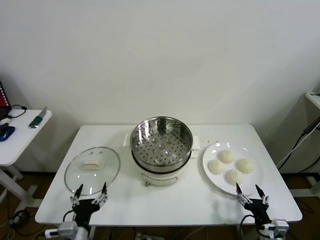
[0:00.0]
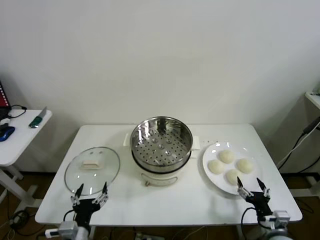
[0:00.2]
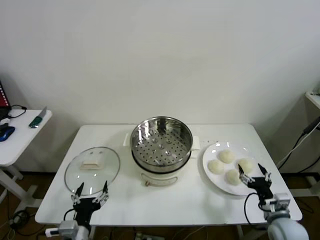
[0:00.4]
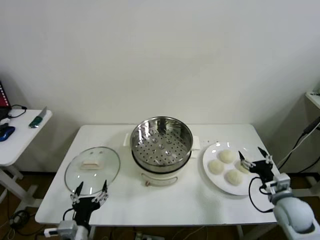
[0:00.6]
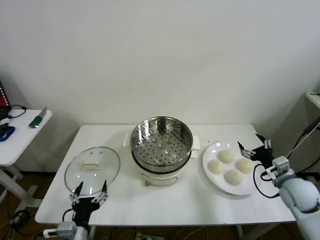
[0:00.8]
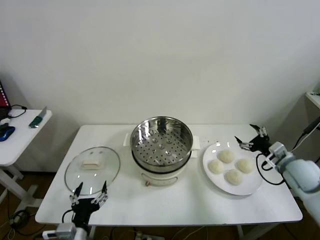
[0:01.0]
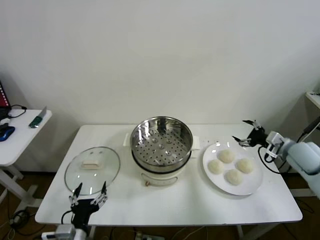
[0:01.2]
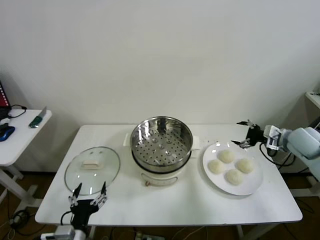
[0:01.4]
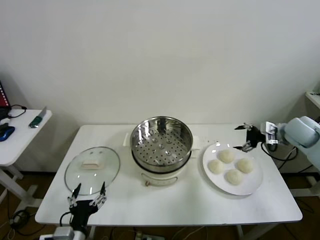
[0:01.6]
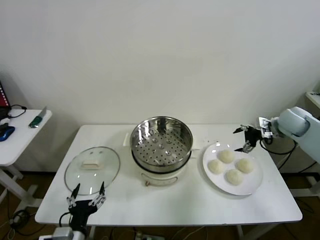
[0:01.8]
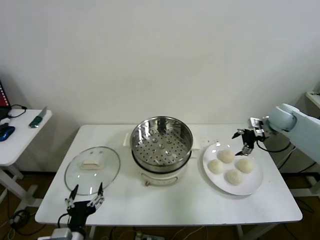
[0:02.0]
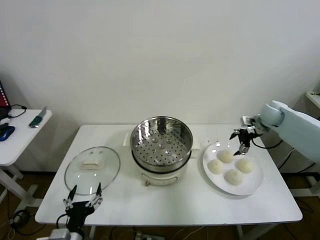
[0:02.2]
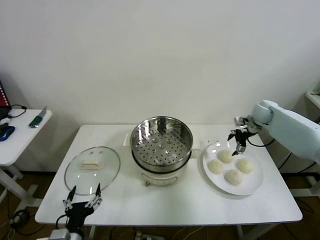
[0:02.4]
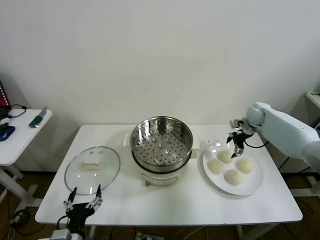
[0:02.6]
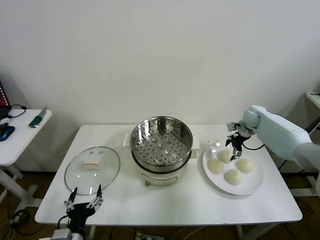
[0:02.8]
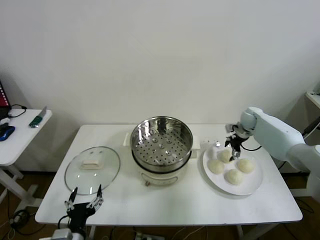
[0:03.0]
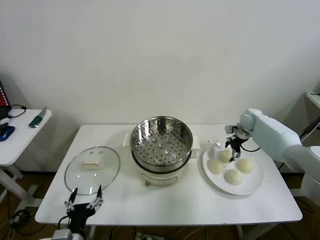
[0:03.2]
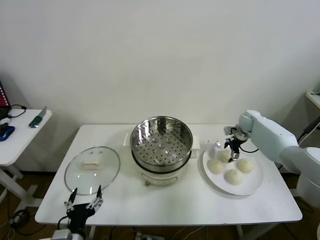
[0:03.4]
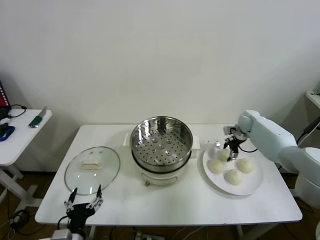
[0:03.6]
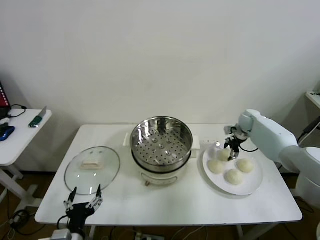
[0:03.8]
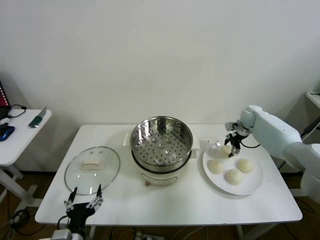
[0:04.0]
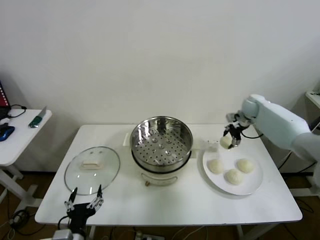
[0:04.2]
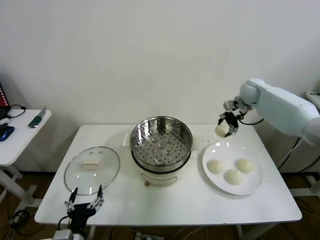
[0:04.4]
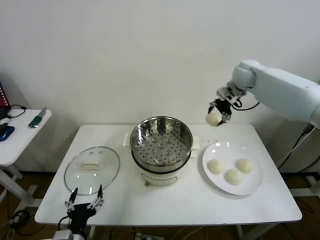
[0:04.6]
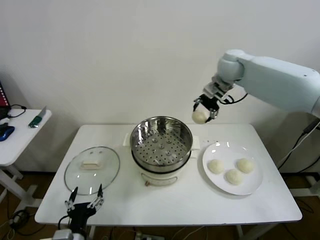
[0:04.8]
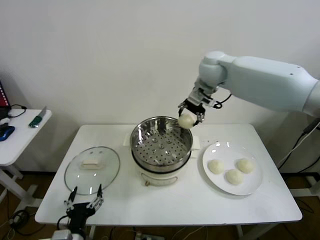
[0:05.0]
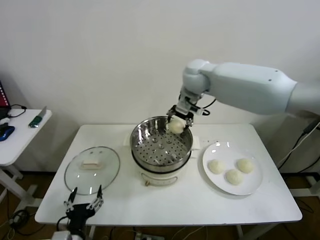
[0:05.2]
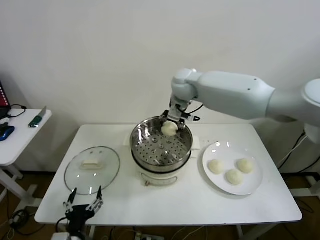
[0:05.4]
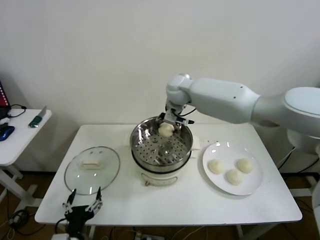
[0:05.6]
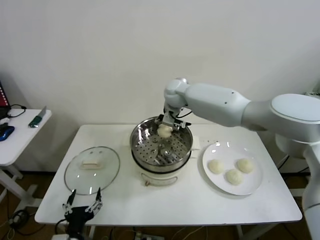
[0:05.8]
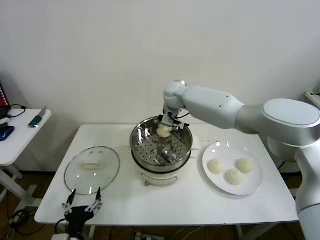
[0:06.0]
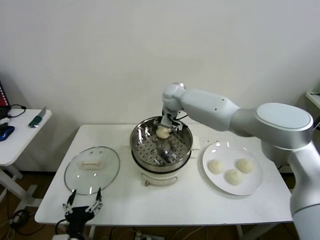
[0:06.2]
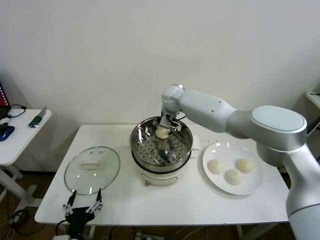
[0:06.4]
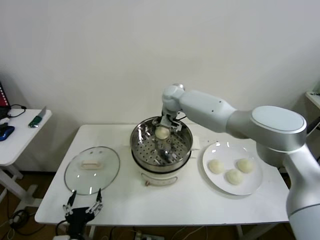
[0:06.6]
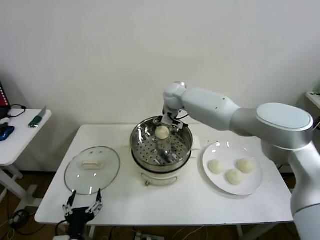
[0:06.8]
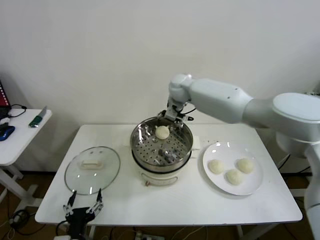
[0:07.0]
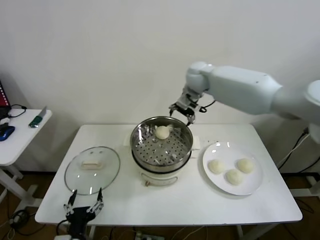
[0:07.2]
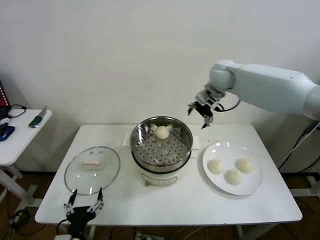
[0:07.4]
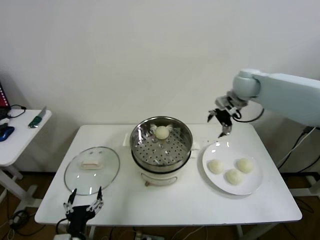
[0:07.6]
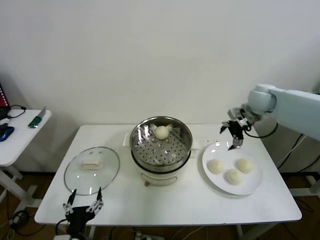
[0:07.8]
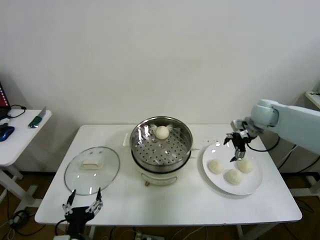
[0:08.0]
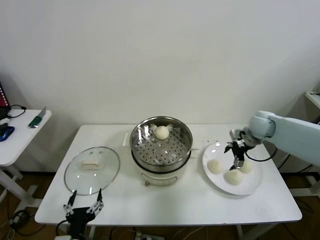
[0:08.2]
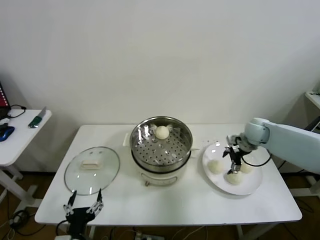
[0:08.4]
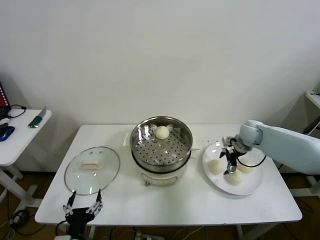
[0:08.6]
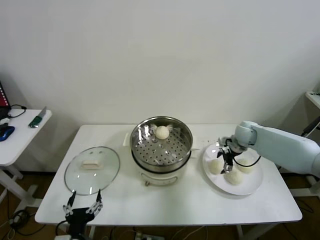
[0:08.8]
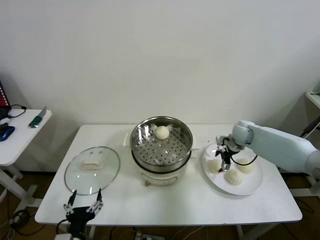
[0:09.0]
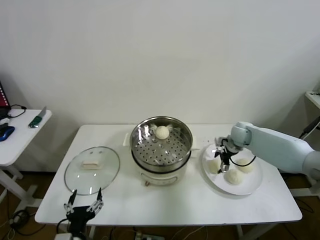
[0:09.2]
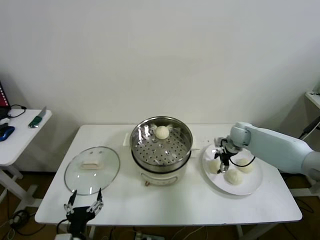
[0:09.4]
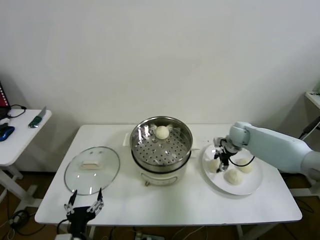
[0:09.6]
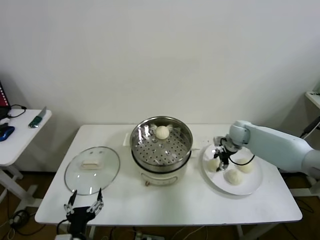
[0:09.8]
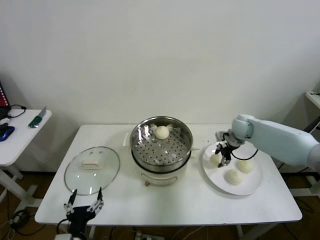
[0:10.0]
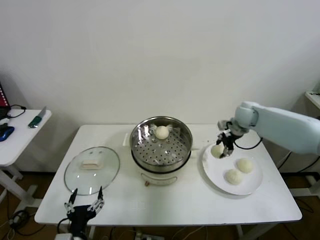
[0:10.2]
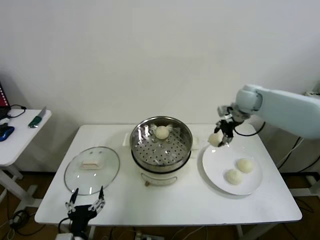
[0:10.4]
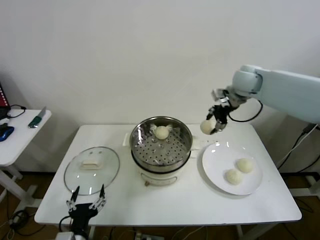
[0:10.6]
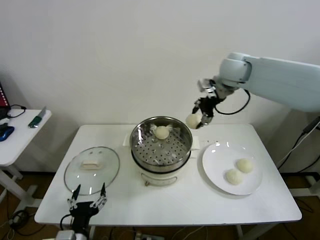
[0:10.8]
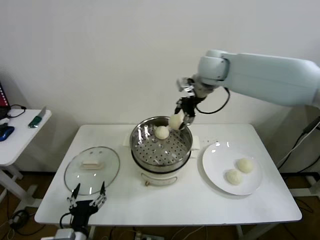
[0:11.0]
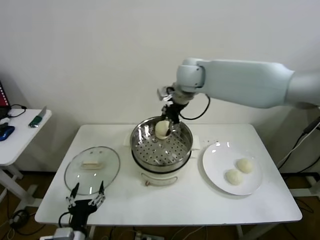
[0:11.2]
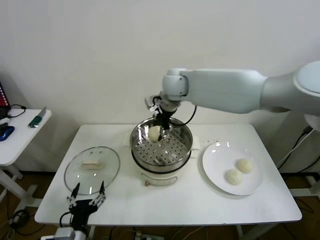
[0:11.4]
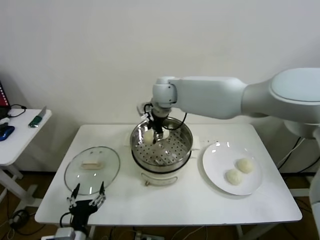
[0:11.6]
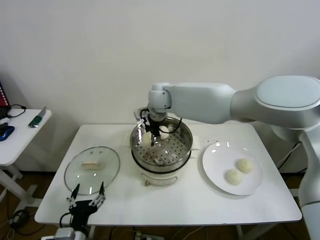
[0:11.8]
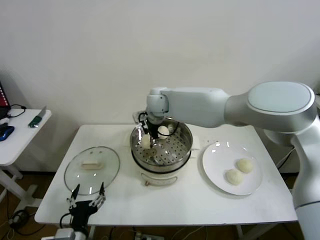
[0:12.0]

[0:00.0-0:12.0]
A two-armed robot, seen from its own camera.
Step, 0:00.0 to 0:03.6: Grasp the baozi in the plate with right gripper.
Step, 0:03.8 to 0:06.4: Place the baozi on the steamer with right gripper.
Step, 0:06.6 to 0:09.6: Grasp the baozi in the plate with right gripper.
0:01.6 to 0:03.0: The right gripper shifts about 20 cm forward, downward and to the left.
0:03.0 to 0:04.4: The right gripper moves upward, roughly 15 cm, and closes up.
0:04.4 to 0:06.0: The right gripper moves to the left, approximately 30 cm.
0:06.0 to 0:07.6: The right gripper is displaced to the right by roughly 25 cm, and opens.
0:07.6 to 0:09.0: The right gripper moves downward, approximately 20 cm.
0:09.0 to 0:10.4: The right gripper is displaced upward by about 15 cm, and closes.
0:10.4 to 0:12.0: The right gripper shifts roughly 30 cm to the left.

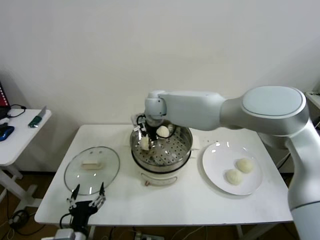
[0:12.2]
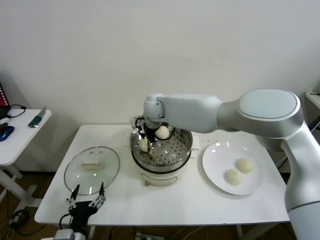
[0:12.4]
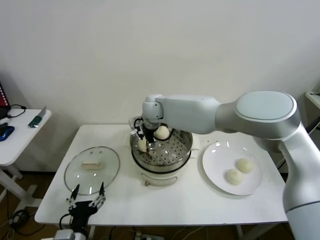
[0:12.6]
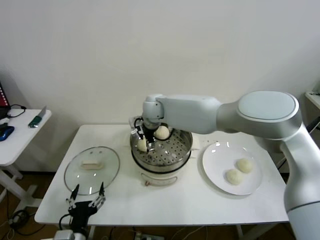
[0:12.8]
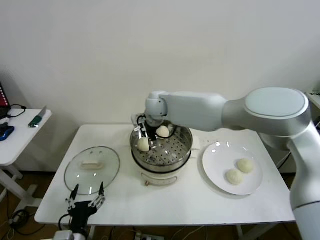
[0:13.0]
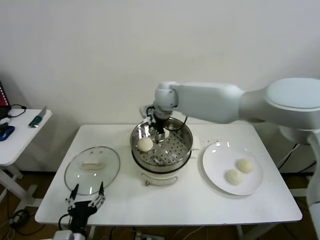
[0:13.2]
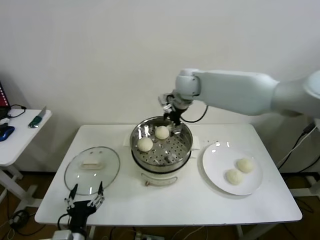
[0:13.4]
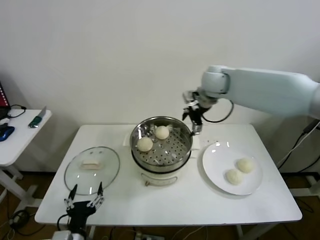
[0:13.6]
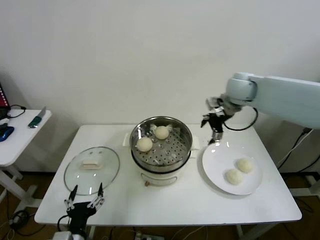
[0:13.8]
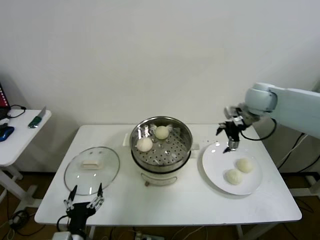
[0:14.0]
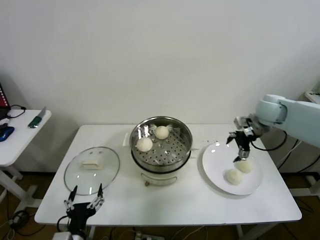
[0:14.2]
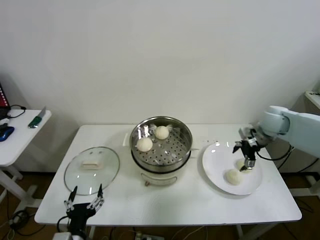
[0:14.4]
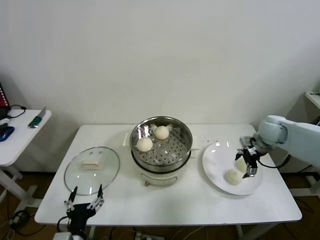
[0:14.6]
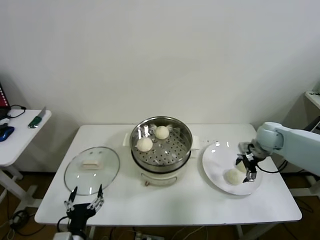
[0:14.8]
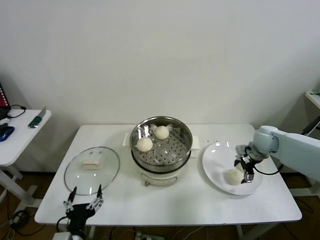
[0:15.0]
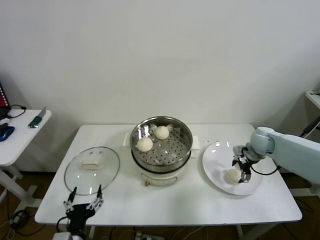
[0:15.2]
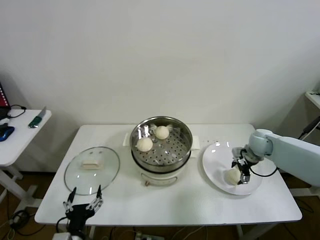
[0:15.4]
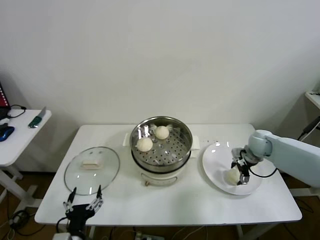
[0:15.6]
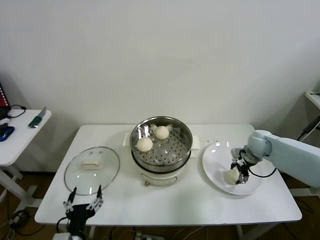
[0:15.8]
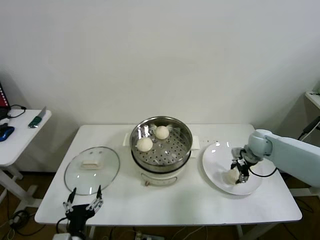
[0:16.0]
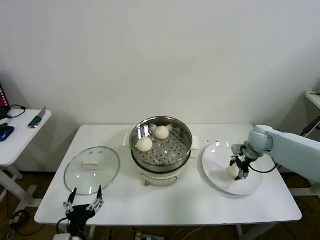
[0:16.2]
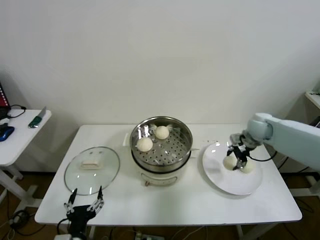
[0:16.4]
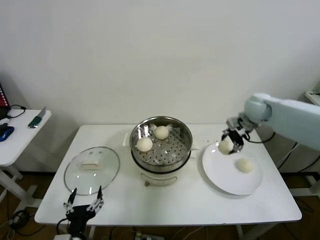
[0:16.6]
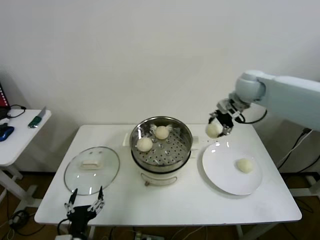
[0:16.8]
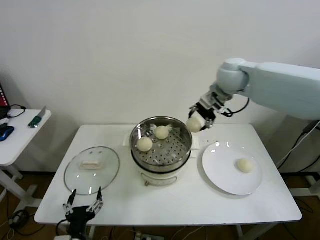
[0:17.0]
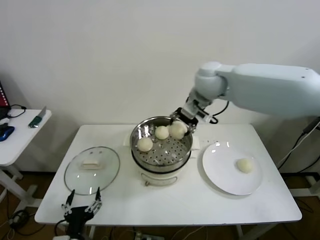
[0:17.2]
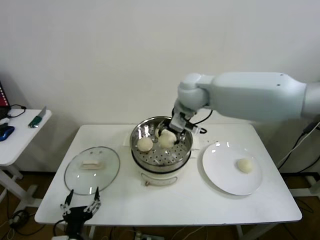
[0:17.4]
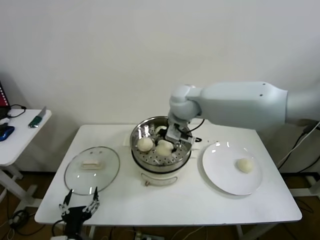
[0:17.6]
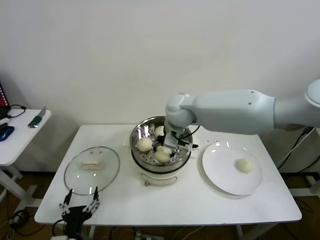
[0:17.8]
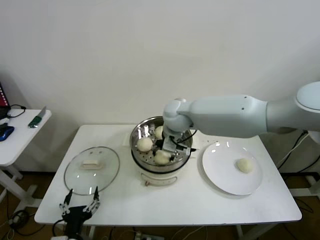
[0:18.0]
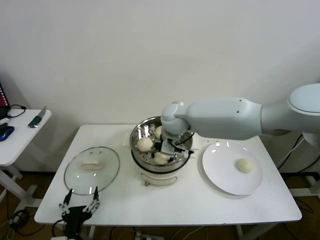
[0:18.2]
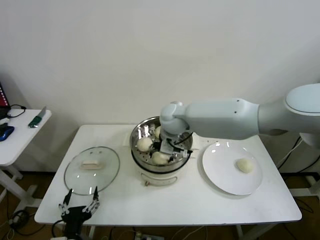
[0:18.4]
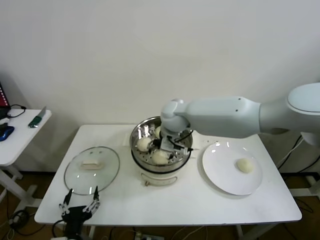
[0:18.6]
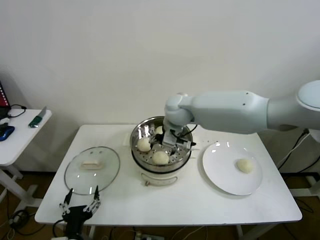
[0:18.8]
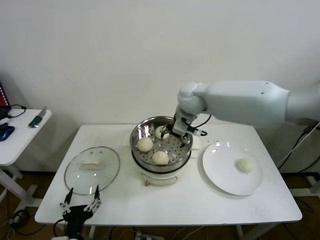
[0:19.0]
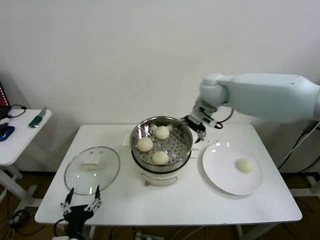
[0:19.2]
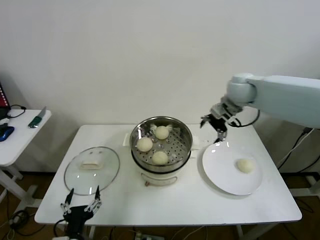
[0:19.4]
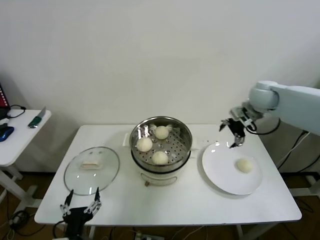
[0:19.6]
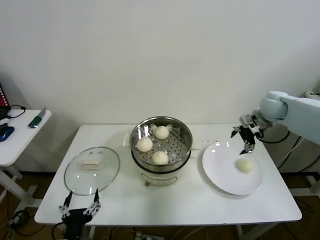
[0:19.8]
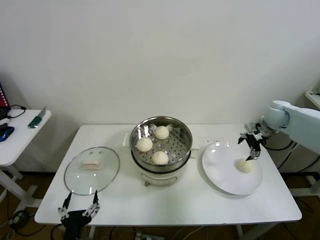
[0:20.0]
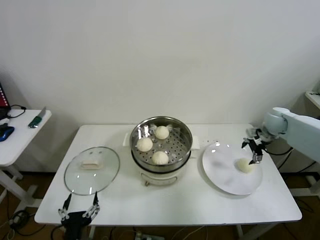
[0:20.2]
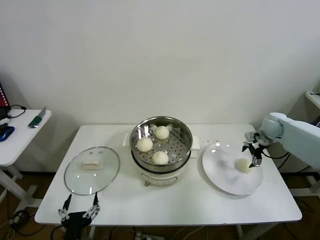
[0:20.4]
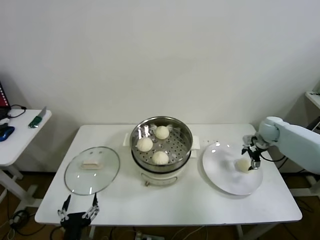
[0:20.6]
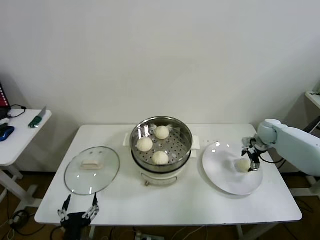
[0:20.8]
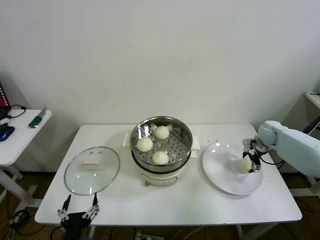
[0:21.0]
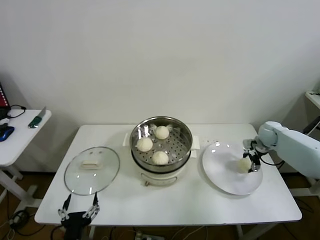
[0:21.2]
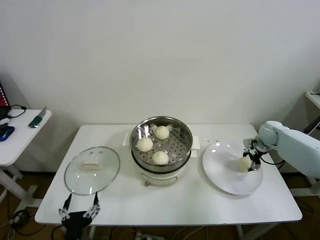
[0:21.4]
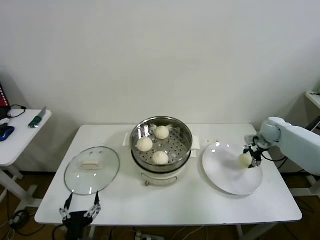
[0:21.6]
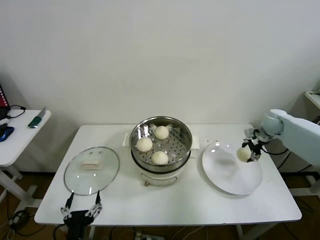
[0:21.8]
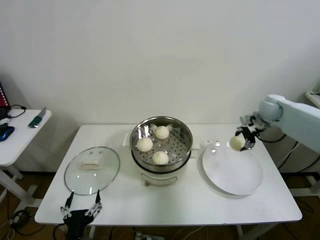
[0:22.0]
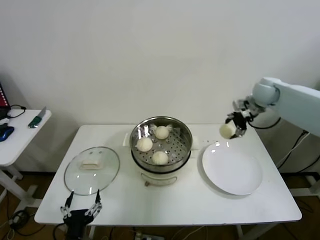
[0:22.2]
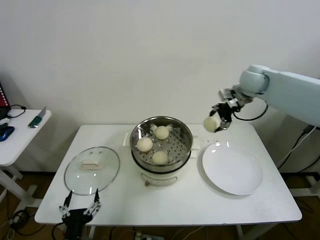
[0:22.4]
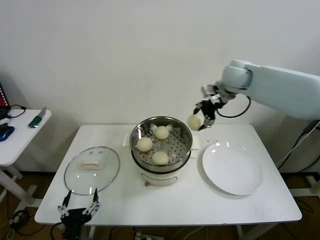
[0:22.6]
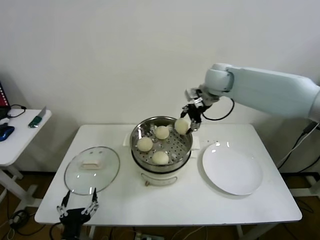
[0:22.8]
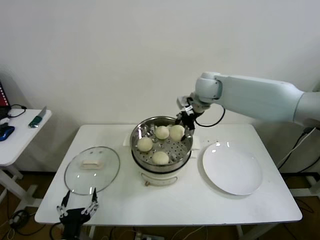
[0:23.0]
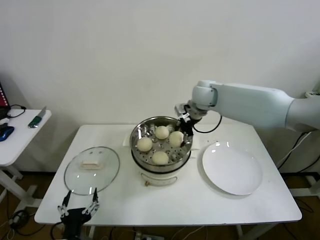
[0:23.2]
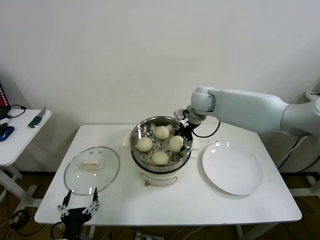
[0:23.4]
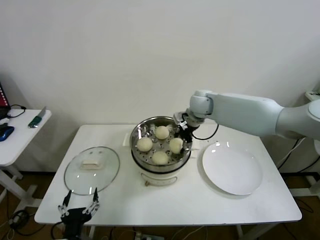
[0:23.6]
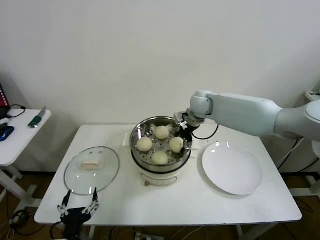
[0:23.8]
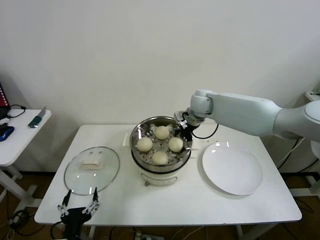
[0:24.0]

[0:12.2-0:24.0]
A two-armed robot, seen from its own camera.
Step, 0:12.8 to 0:15.8: Grasp the baozi in the plate with right gripper.
Step, 0:16.0 to 0:18.2: Place the baozi on the steamer with right gripper.
Step, 0:18.6 to 0:21.0: Grasp the baozi in the plate with right gripper.
Step, 0:21.2 to 0:23.8: Place the baozi on the steamer with right gripper.
0:12.2 to 0:13.6: The right gripper heads to the right and upward, covering approximately 20 cm, and opens.
0:13.6 to 0:15.2: The right gripper shifts roughly 30 cm downward and to the right.
0:15.2 to 0:16.6: The right gripper travels upward by approximately 15 cm, and closes its fingers.
0:16.6 to 0:18.2: The right gripper is displaced to the left by roughly 30 cm.
0:18.2 to 0:19.6: The right gripper travels to the right by some 30 cm, and opens up.
0:19.6 to 0:21.0: The right gripper goes roughly 20 cm downward and to the right.
0:21.0 to 0:22.6: The right gripper moves upward and to the left, some 30 cm, and closes up.
0:22.6 to 0:24.0: The right gripper travels downward and to the left by about 15 cm, and opens its fingers.
